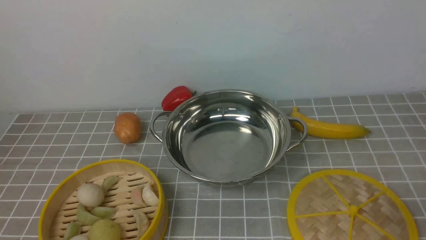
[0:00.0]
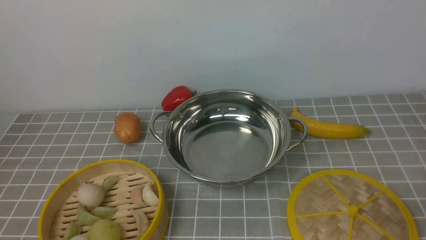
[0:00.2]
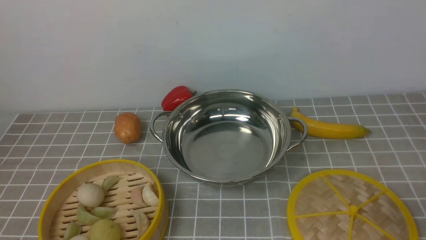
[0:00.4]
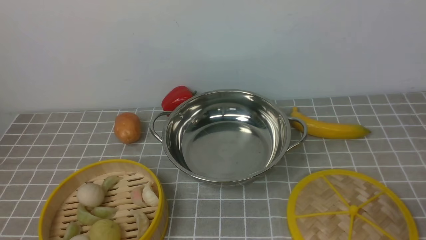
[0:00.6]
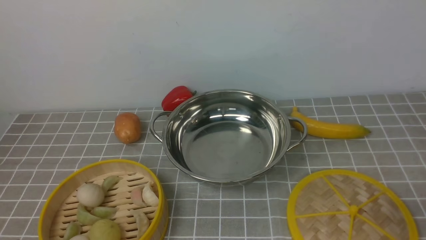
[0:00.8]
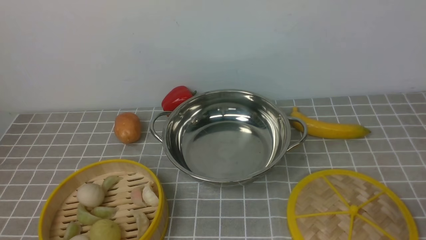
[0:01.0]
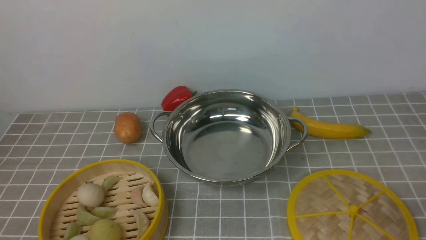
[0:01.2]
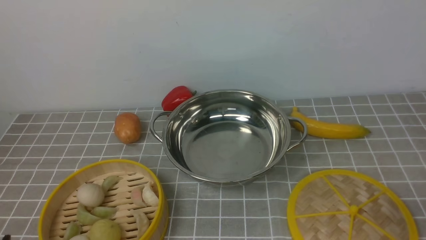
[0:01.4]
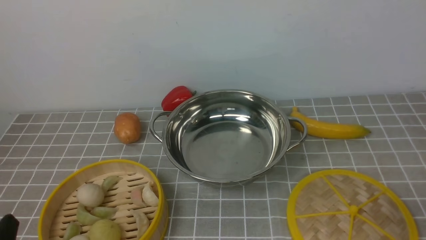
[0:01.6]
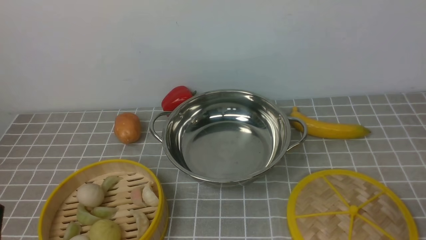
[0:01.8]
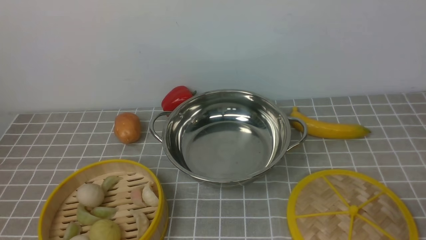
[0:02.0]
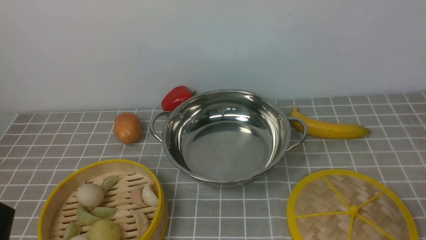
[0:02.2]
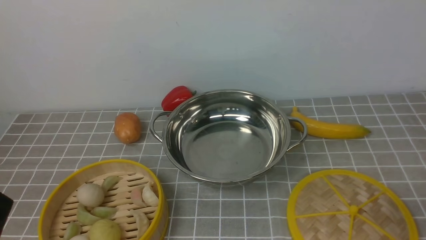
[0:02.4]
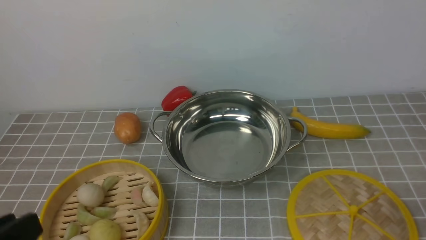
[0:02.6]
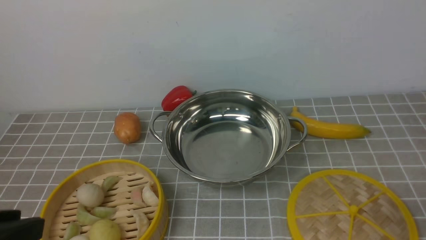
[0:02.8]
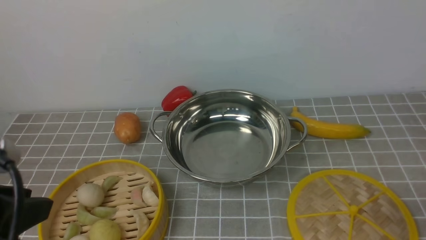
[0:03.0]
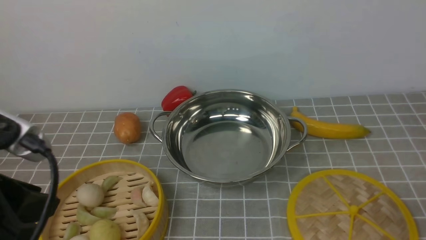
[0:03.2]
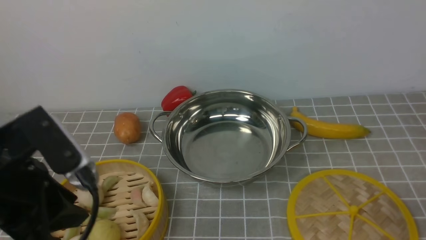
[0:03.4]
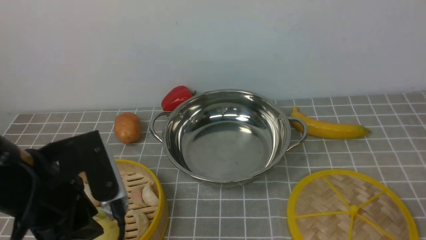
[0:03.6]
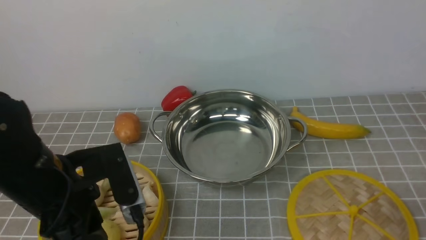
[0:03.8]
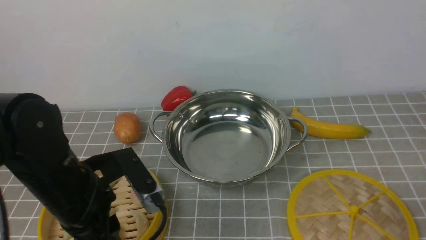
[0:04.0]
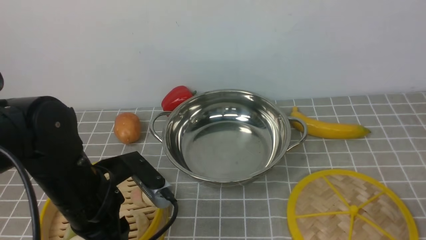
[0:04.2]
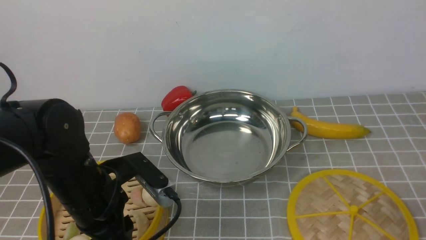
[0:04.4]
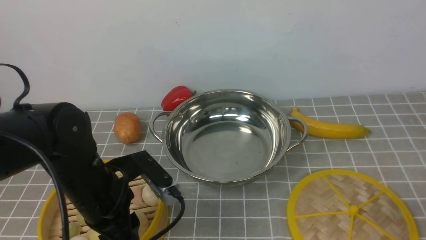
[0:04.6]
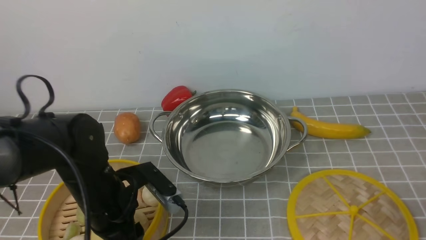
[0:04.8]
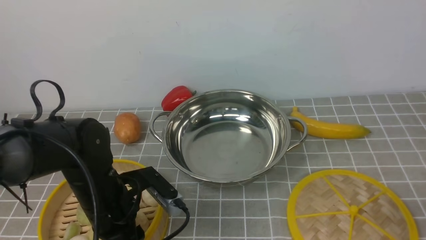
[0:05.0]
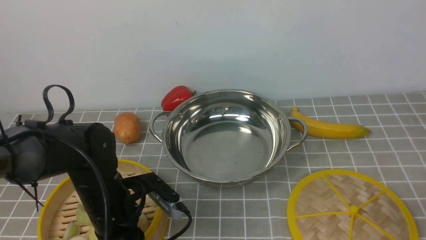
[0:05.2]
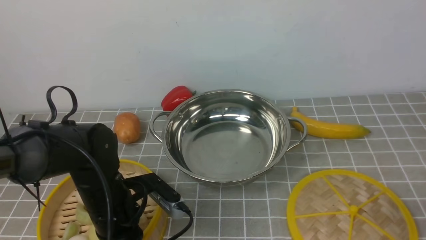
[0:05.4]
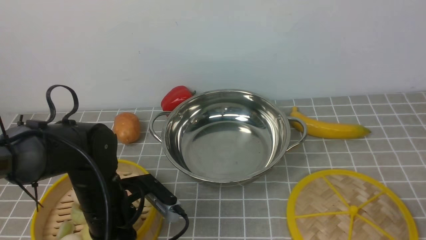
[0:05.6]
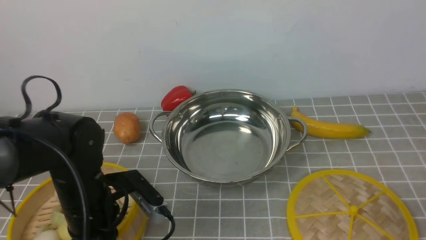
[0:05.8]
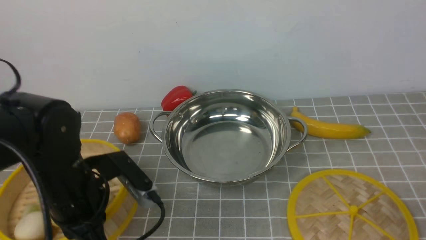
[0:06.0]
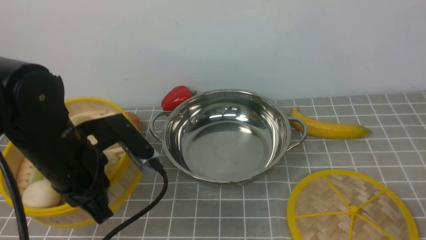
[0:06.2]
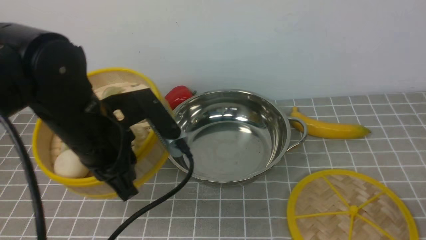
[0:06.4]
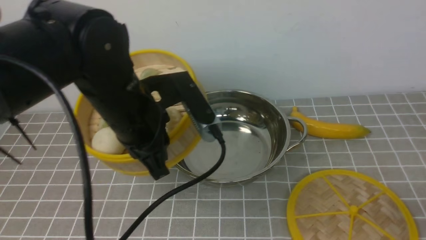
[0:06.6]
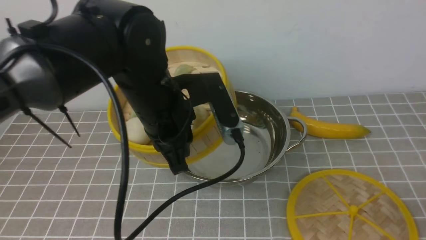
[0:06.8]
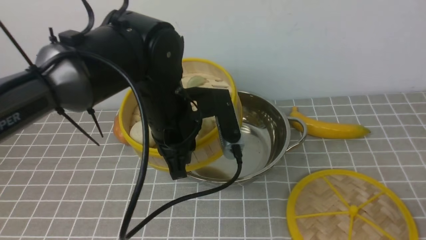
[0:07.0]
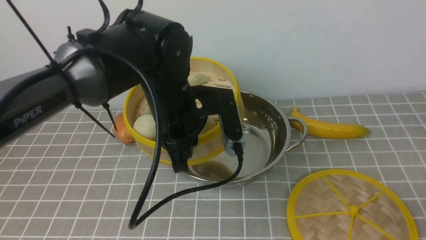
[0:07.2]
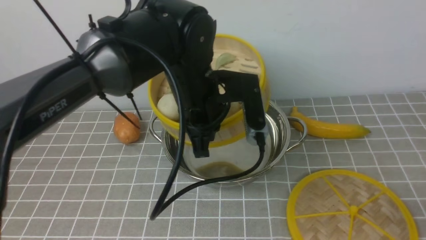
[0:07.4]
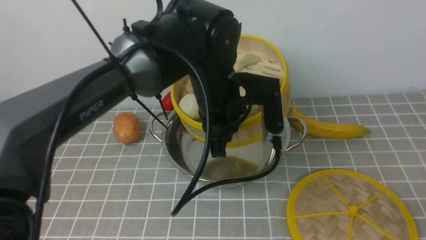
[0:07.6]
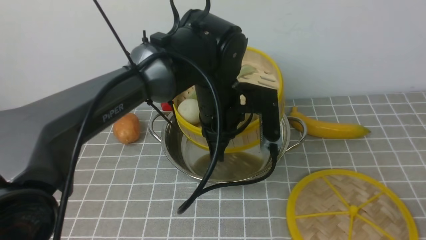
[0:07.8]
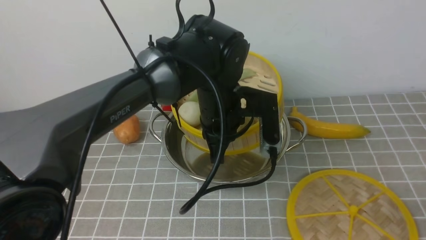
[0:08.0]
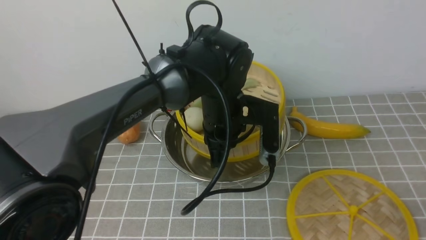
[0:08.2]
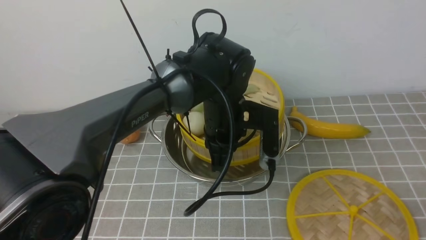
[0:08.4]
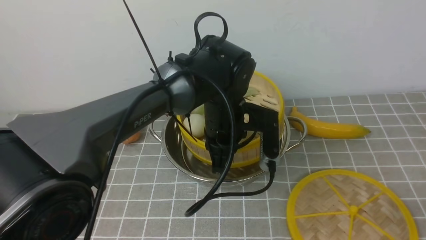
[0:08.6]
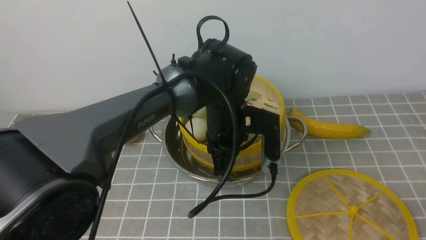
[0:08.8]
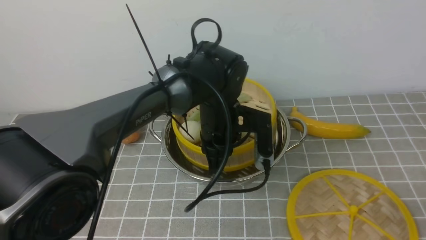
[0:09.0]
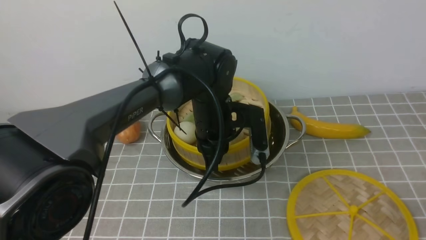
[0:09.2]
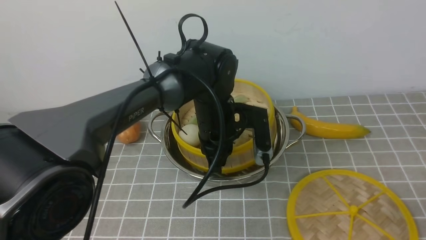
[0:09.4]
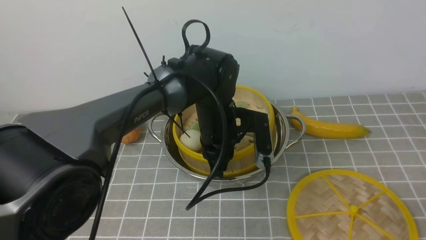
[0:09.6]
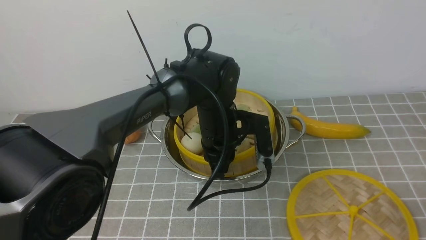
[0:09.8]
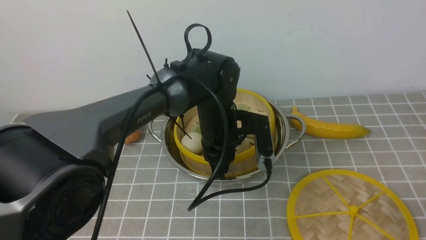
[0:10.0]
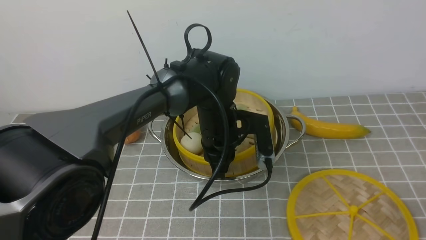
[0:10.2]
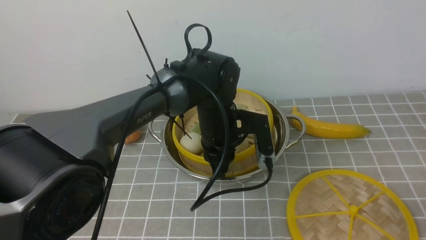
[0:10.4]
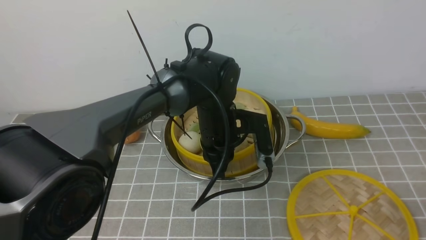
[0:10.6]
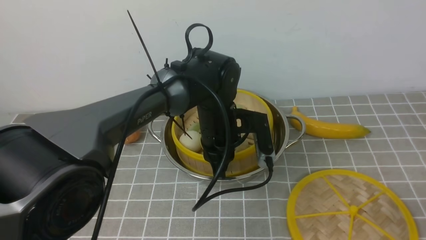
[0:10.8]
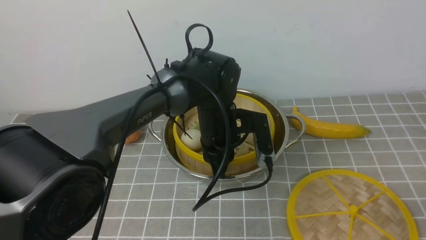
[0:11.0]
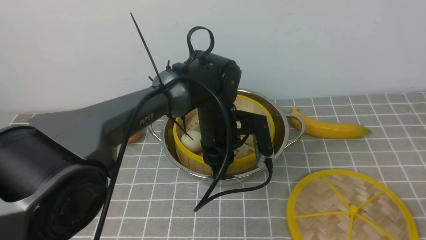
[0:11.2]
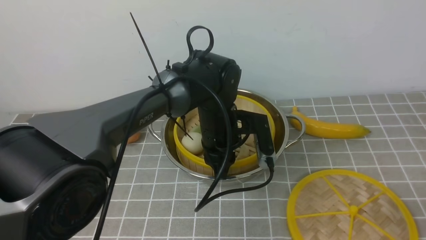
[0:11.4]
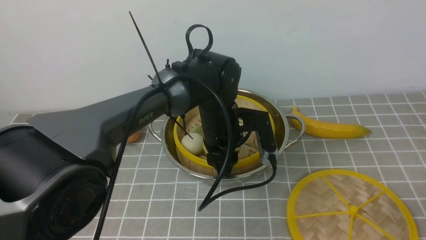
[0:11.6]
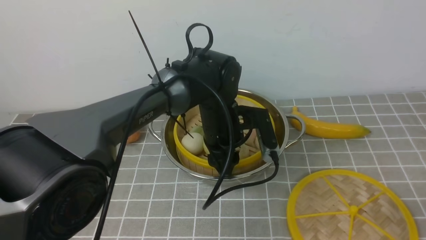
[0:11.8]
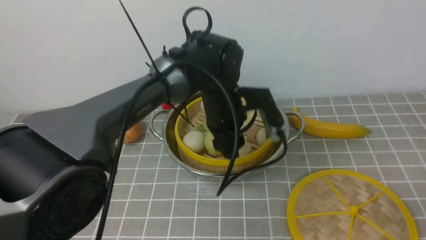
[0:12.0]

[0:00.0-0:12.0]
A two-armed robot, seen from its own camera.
Task of the whole recording: place the steamer in the pot on the grey tablecloth, and put the lid on the steamer.
Step, 0:00.0 to 0:05.8: use the left arm to lift the steamer closest to it.
Step, 0:06.0 to 0:12.0: use the left arm to put the steamer into the iron steamer pot in the middle.
0:01.6 to 0:03.0: The left gripper heads upward, covering about 15 cm.
0:03.0 to 0:04.4: The left gripper shifts roughly 20 cm downward, forward and to the right.
0:04.4 to 0:06.0: The left gripper moves some 5 cm downward and comes back, and closes up.
0:06.0 to 0:07.6: The left gripper is displaced to the right and forward by roughly 20 cm.
0:07.6 to 0:09.0: The left gripper travels downward by about 5 cm.
0:09.0 to 0:10.4: The grippers make only small movements.
0:10.4 to 0:12.0: The left gripper opens.

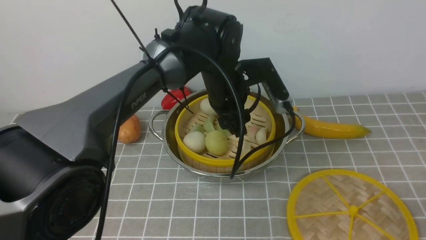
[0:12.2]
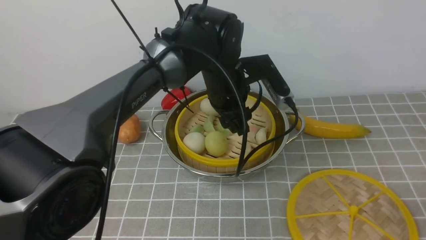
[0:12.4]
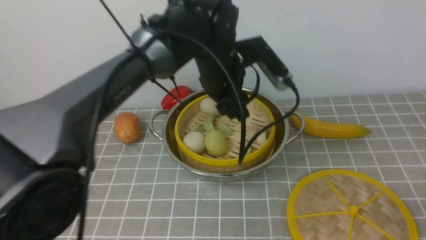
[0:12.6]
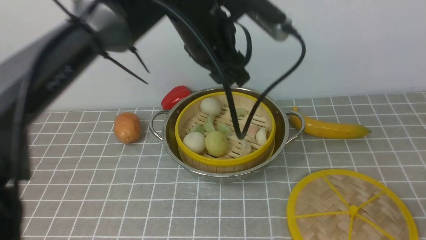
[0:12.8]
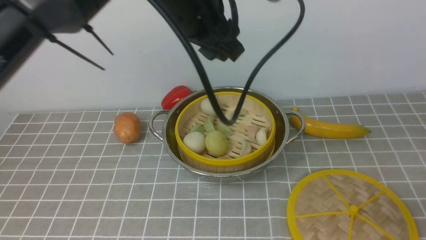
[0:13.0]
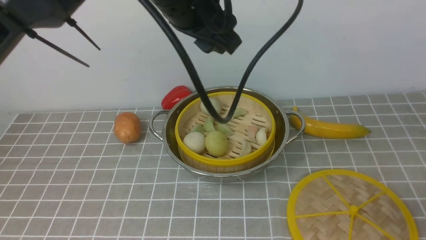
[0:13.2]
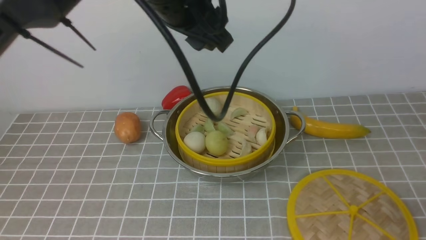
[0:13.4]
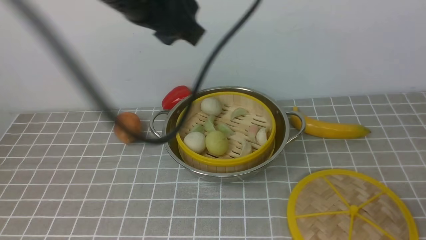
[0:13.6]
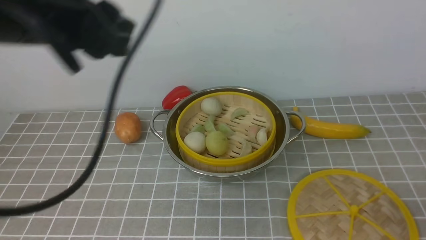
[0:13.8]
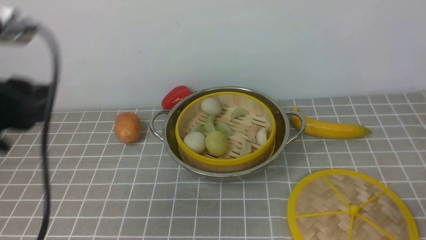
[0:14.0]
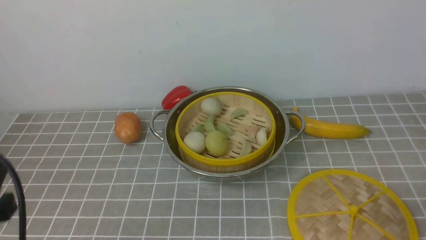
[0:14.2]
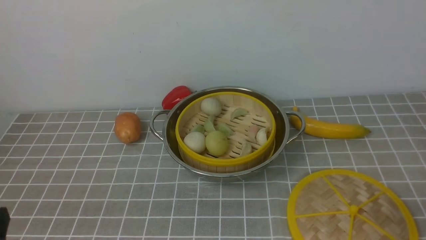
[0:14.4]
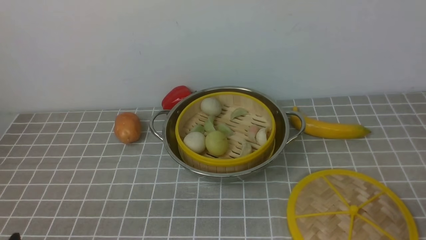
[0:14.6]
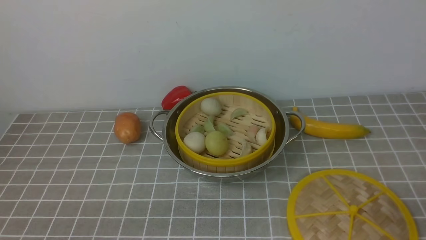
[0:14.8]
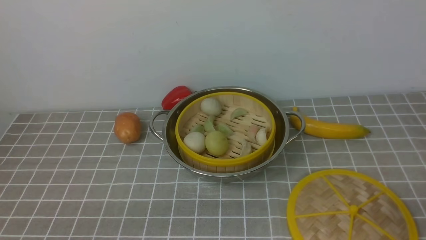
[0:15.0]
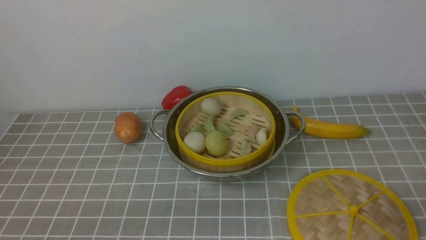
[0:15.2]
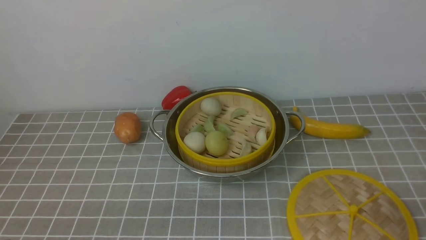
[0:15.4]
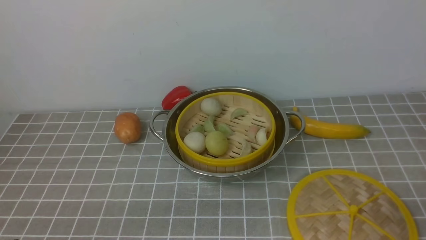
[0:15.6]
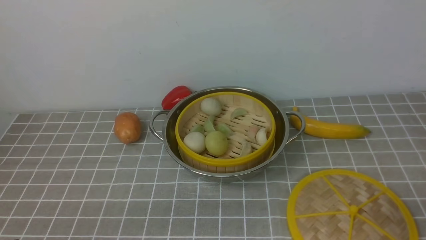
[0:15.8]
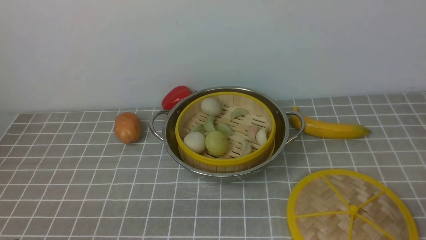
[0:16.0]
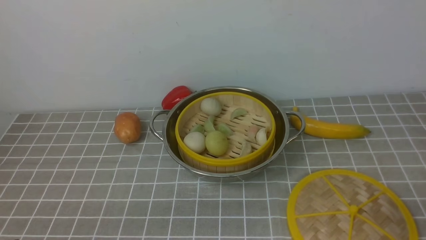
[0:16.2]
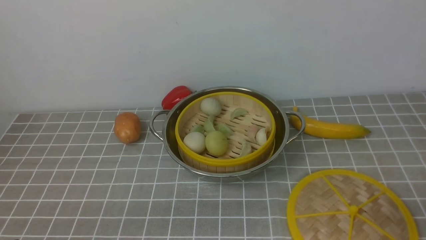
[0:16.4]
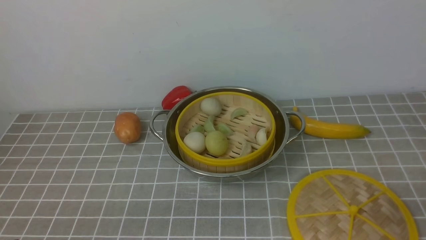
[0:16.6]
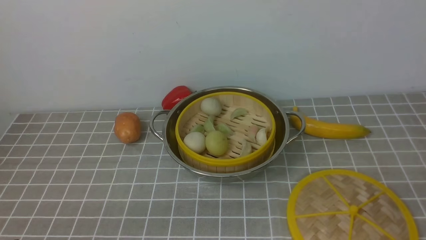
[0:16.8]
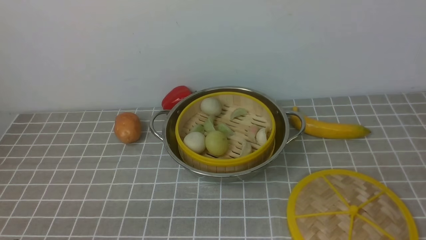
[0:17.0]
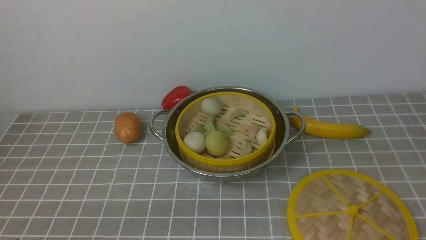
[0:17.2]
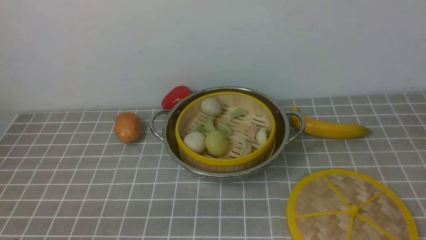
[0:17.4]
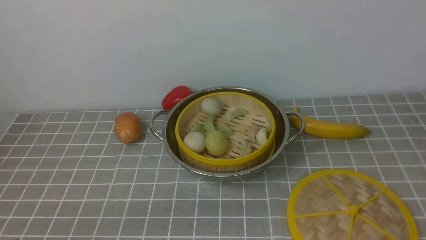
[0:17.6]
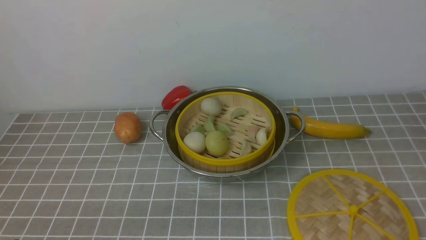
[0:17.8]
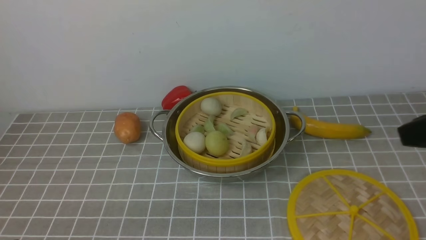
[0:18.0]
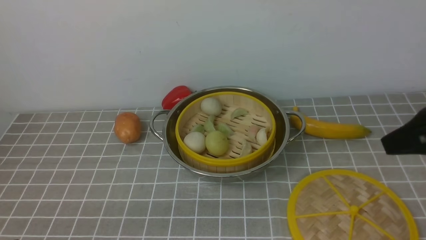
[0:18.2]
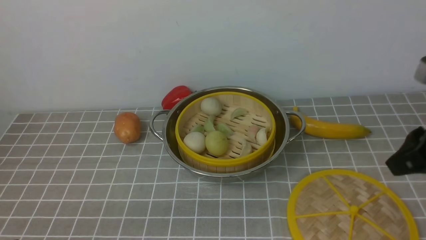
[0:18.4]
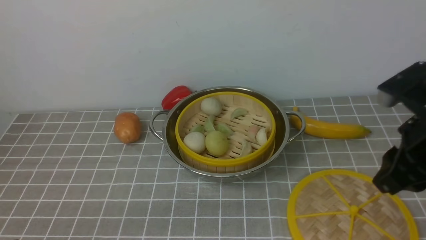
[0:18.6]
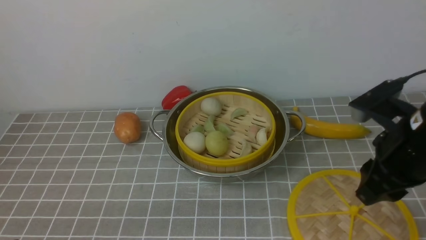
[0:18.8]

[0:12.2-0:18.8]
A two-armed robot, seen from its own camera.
Task of the whole recording: place the steamer in the pot on the grey tablecloth, and put the lid on the steamer.
0:12.2 to 0:13.8: The left gripper shifts roughly 30 cm to the left, upward and backward.
0:13.8 to 0:15.4: The left gripper moves downward and backward, roughly 30 cm.
0:17.2 to 0:18.8: The right gripper moves forward and to the left, roughly 20 cm.
